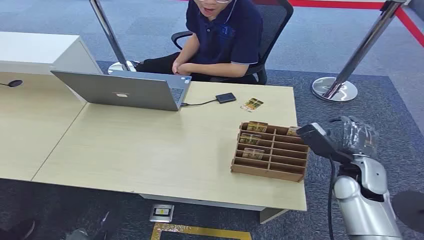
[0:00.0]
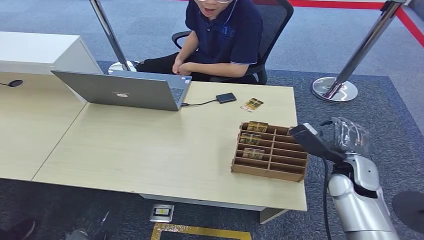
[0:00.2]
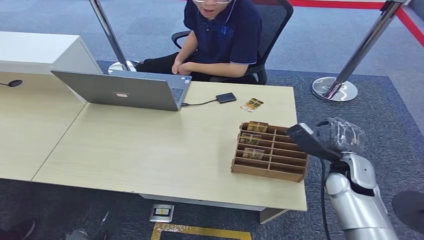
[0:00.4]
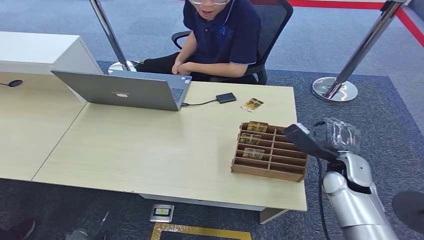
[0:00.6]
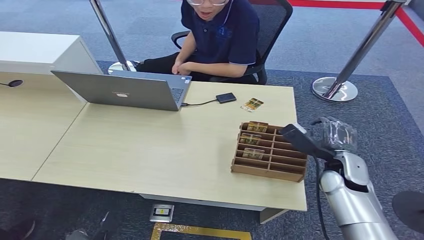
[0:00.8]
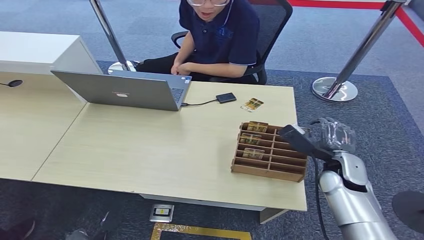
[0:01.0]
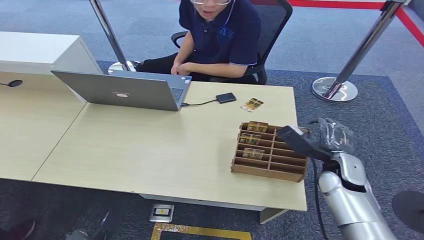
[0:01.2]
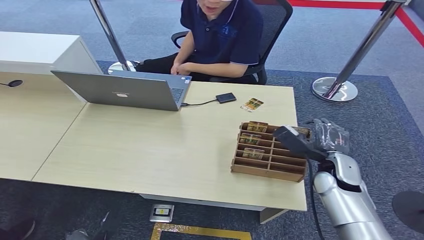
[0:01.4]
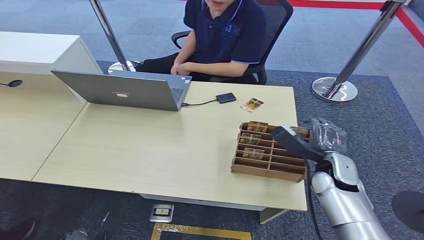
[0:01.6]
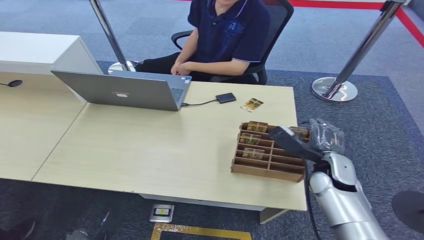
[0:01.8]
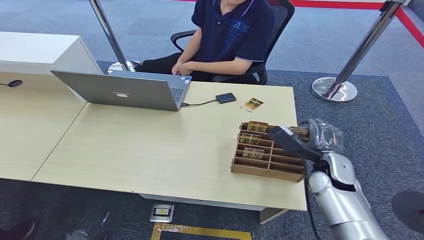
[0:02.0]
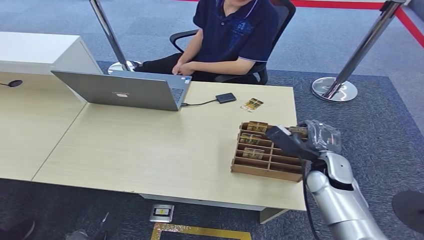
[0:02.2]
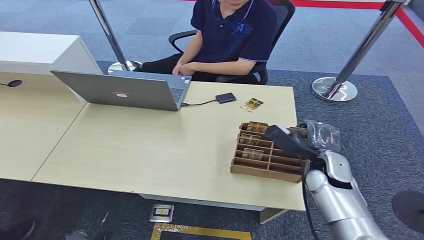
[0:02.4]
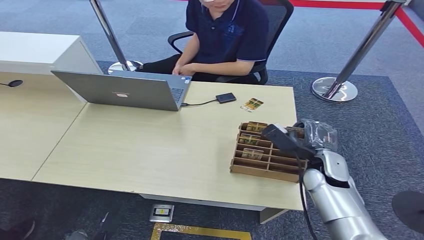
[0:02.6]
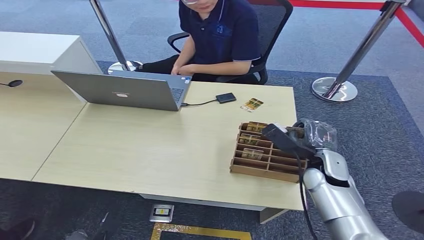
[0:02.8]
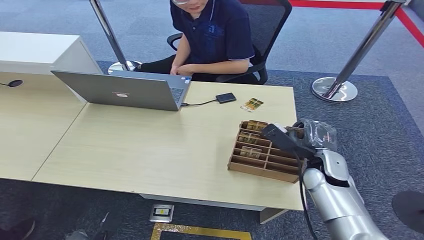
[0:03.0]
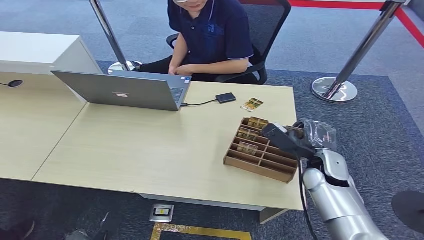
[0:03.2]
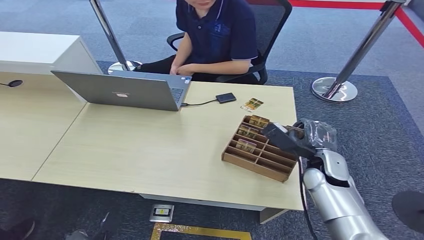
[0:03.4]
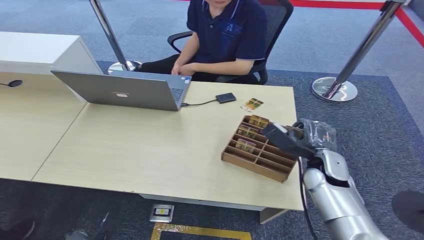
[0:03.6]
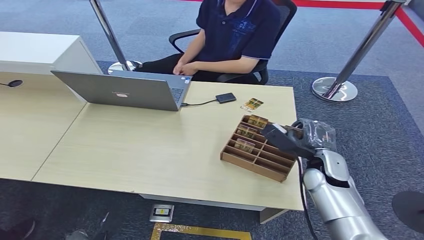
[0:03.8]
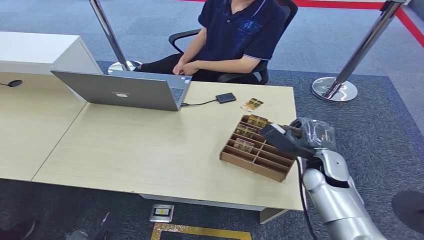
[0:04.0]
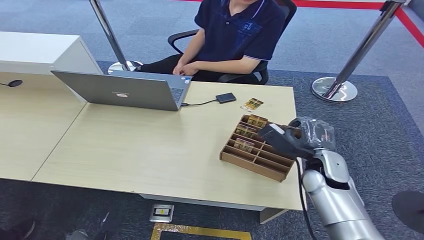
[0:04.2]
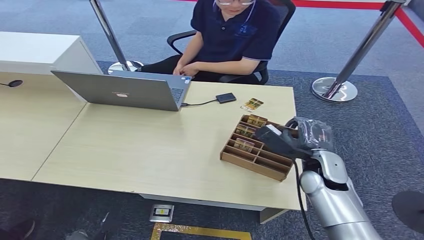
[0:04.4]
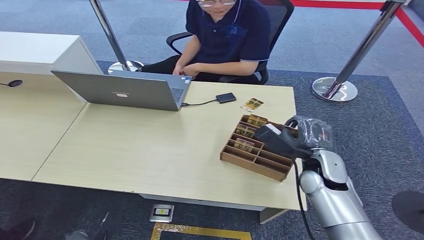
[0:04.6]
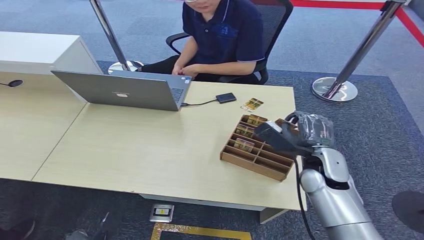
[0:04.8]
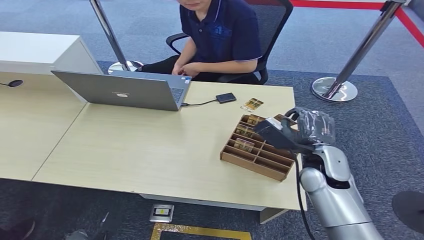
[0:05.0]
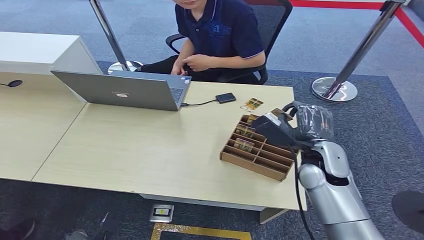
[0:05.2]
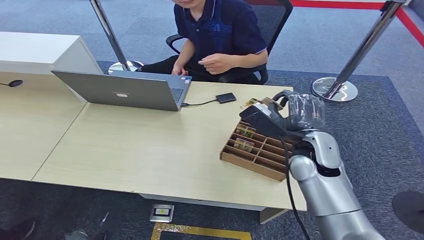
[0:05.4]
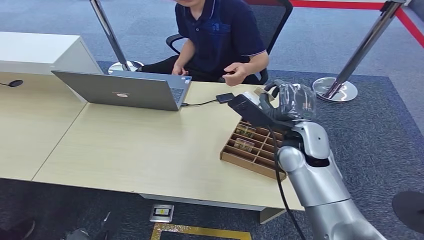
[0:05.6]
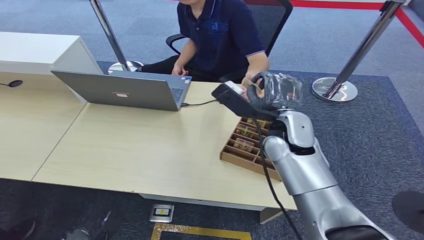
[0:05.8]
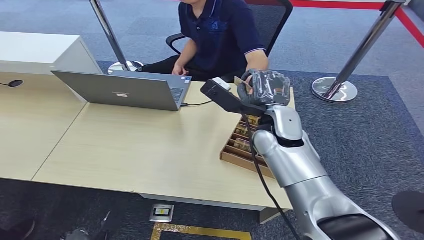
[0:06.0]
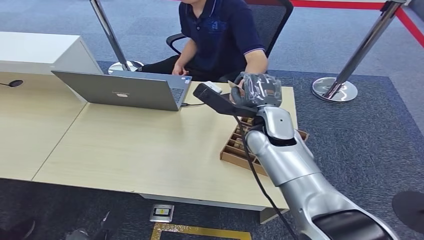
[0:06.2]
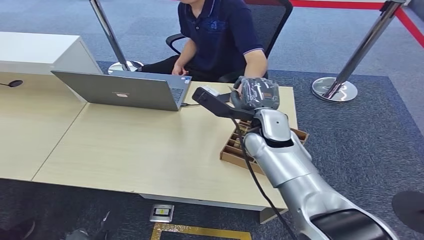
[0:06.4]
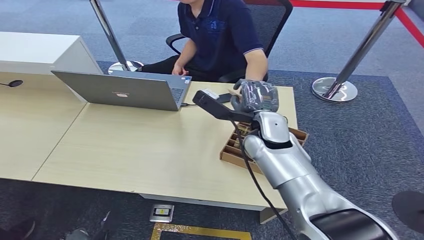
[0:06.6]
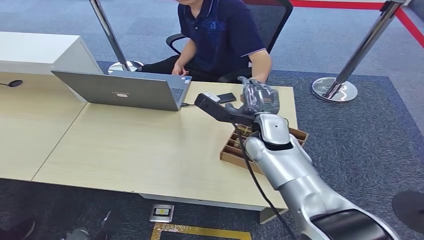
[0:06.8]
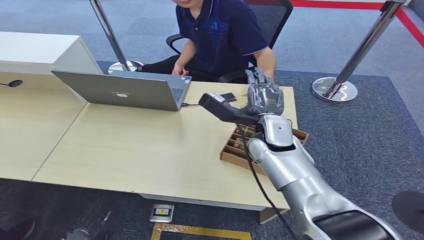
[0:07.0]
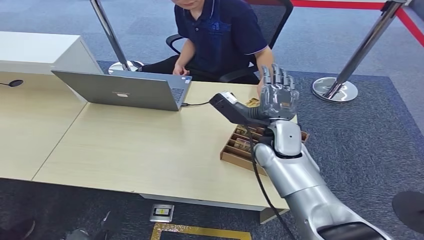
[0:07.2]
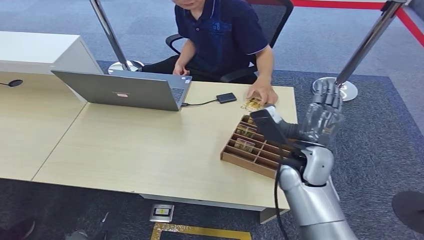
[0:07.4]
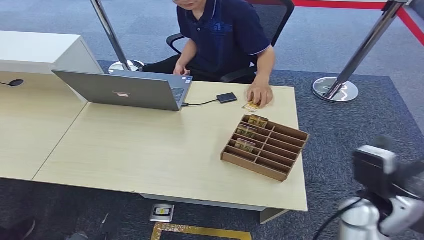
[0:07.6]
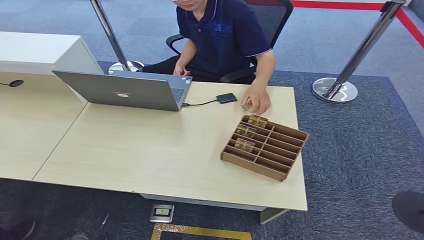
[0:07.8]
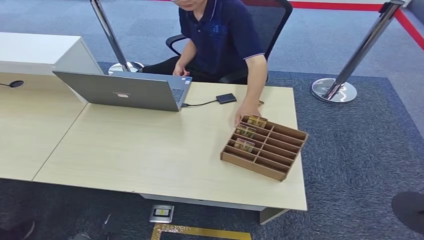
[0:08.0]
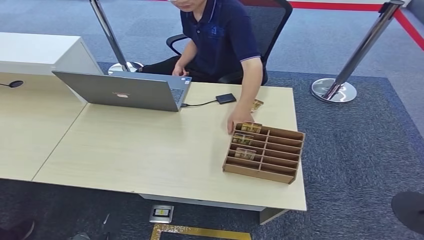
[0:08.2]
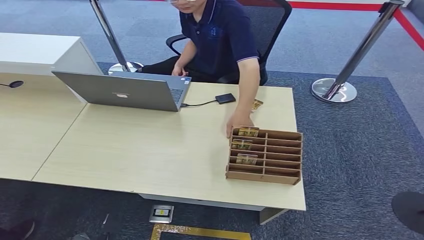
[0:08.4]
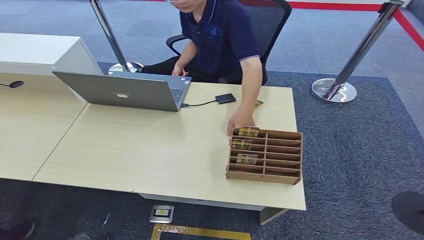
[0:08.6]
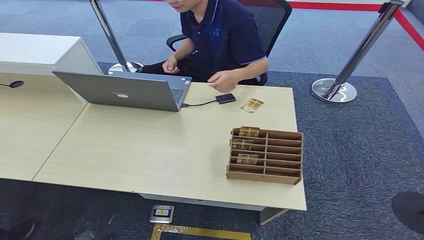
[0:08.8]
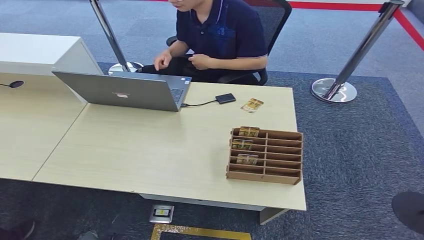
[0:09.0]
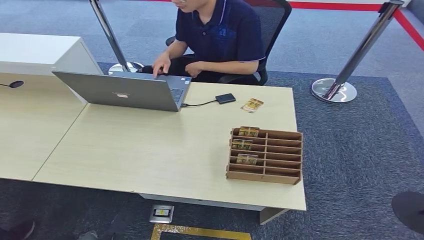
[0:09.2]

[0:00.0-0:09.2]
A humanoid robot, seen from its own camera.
Step, 0:00.0 to 0:05.6: Pick up the room card from the card holder.
Step, 0:05.8 to 0:09.2: Hand the room card to the target.
0:01.6 to 0:04.6: There are only small adjustments of the hands.
0:04.6 to 0:06.2: The right hand goes roughly 20 cm to the left, upward and forward.
0:06.2 to 0:07.6: The right hand goes roughly 20 cm to the right and backward.
0:07.6 to 0:09.2: The right hand moves downward and backward, some 35 cm.
